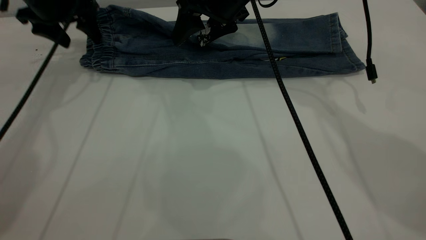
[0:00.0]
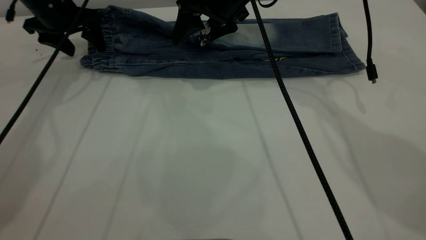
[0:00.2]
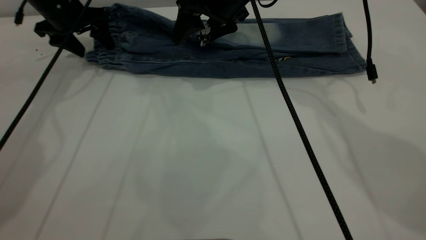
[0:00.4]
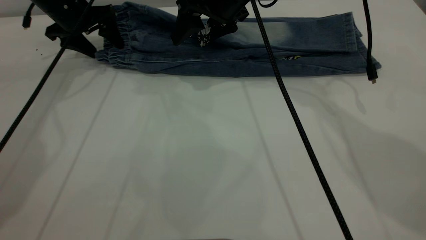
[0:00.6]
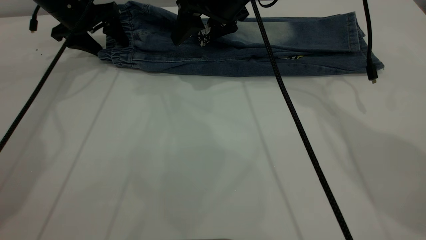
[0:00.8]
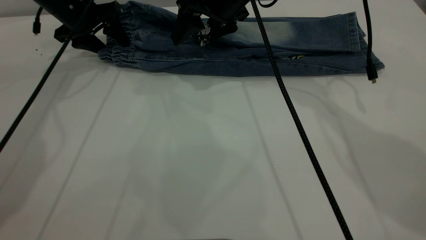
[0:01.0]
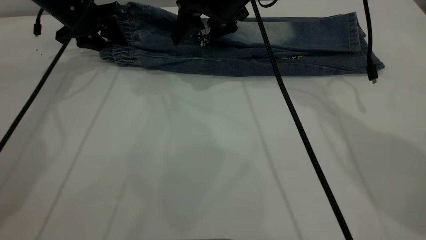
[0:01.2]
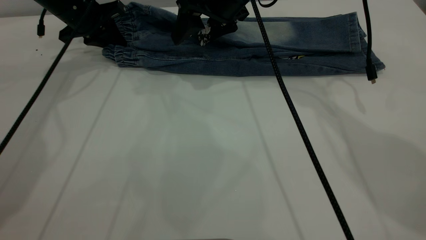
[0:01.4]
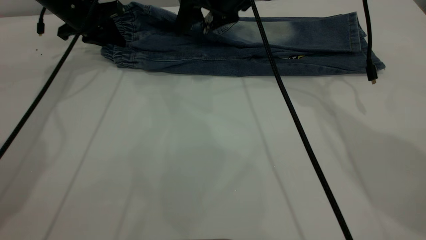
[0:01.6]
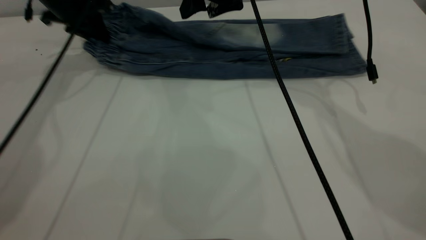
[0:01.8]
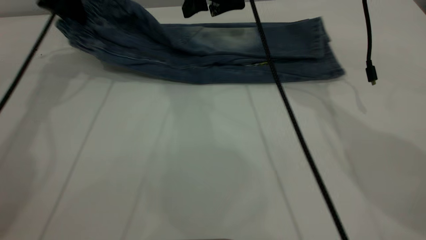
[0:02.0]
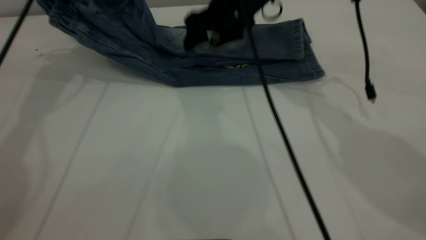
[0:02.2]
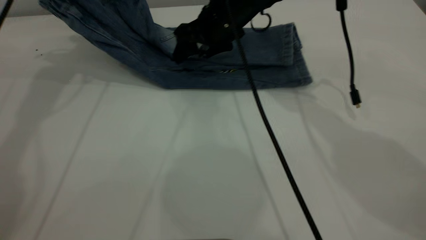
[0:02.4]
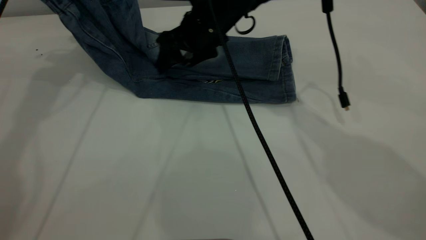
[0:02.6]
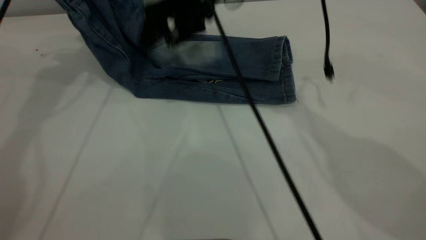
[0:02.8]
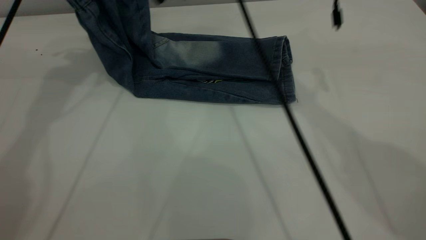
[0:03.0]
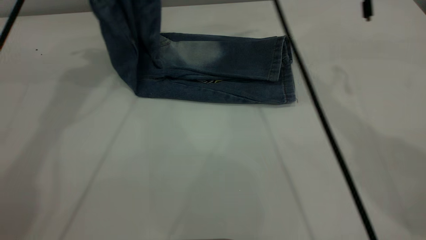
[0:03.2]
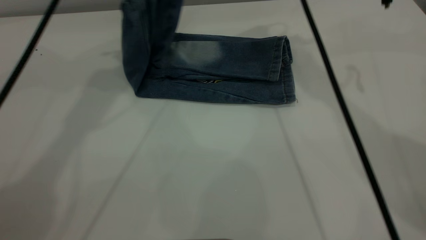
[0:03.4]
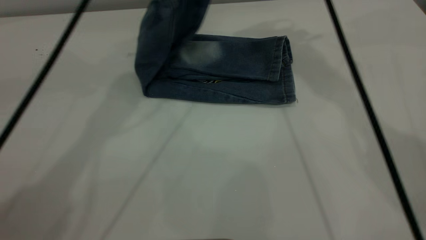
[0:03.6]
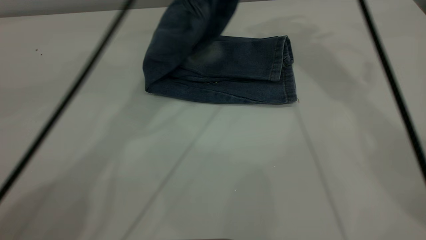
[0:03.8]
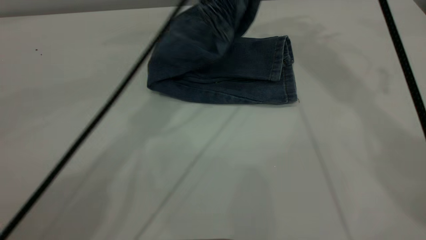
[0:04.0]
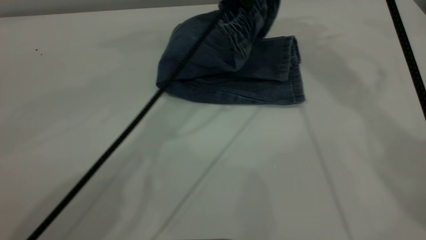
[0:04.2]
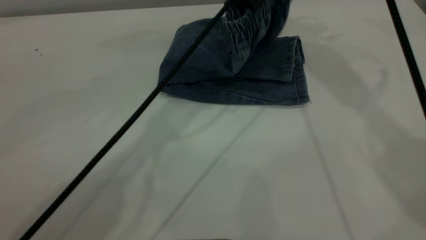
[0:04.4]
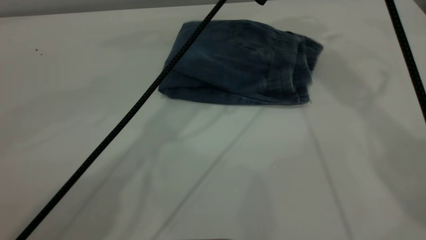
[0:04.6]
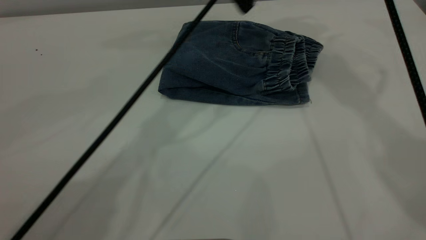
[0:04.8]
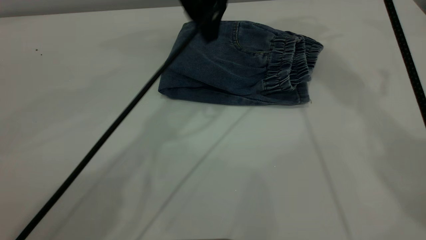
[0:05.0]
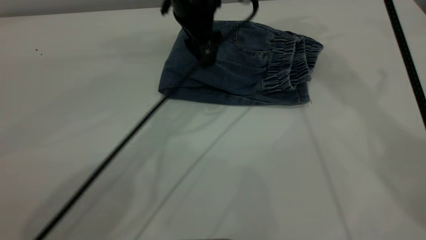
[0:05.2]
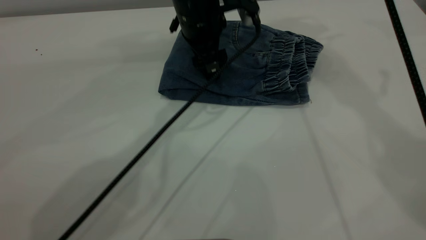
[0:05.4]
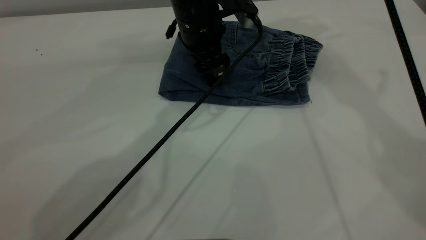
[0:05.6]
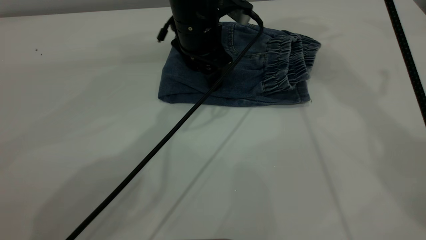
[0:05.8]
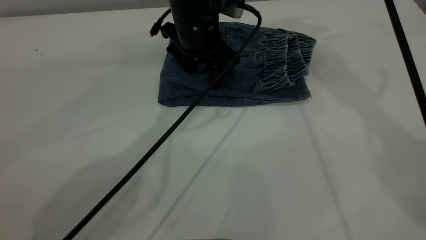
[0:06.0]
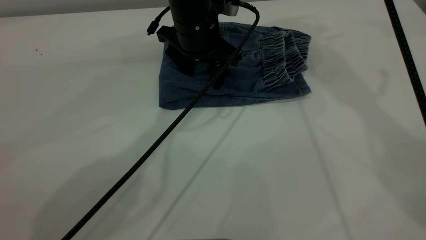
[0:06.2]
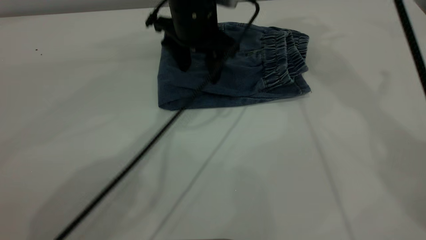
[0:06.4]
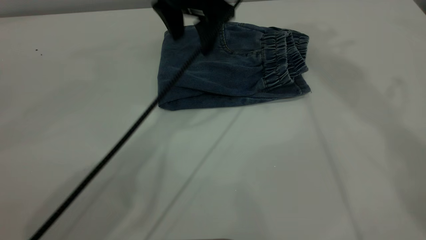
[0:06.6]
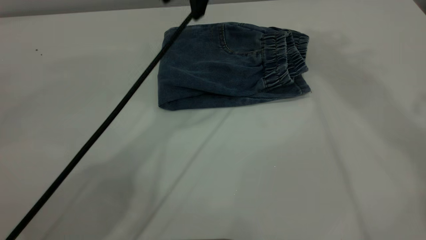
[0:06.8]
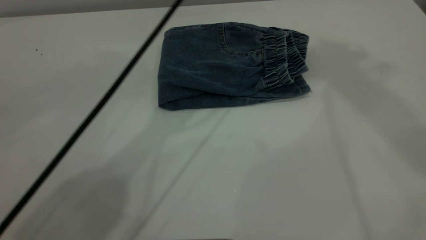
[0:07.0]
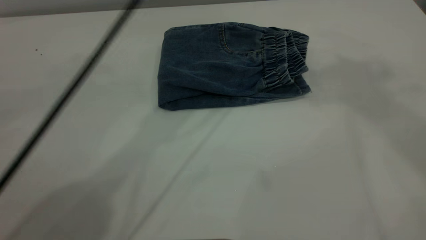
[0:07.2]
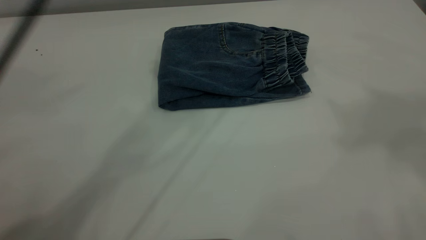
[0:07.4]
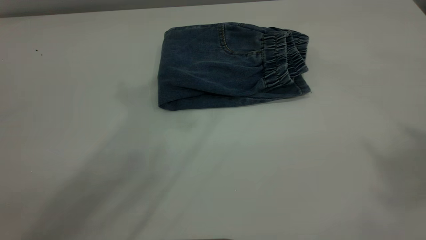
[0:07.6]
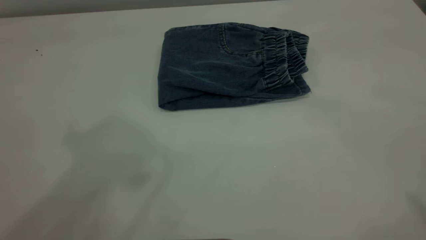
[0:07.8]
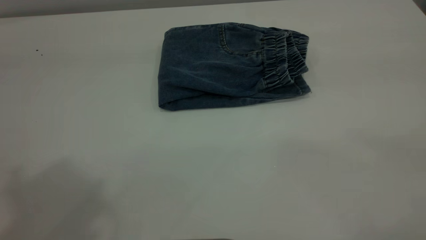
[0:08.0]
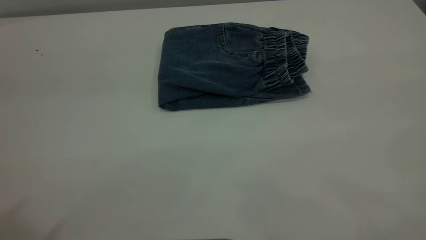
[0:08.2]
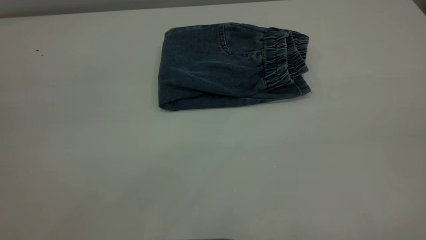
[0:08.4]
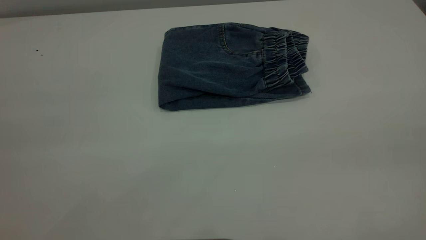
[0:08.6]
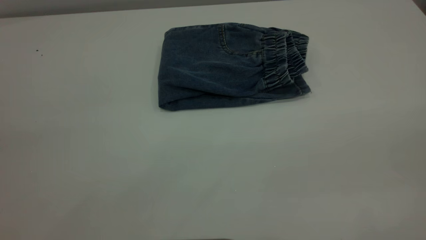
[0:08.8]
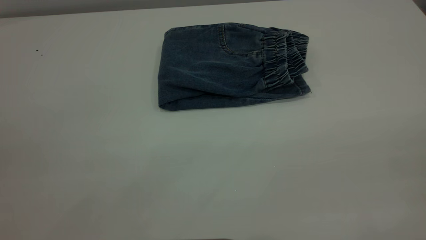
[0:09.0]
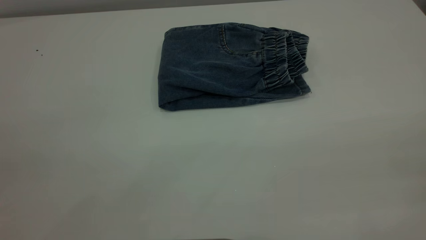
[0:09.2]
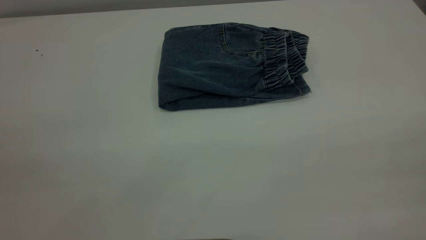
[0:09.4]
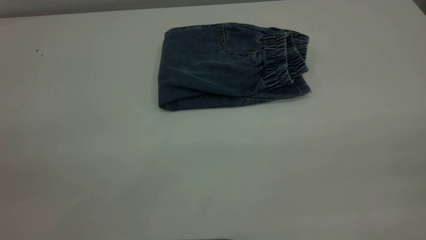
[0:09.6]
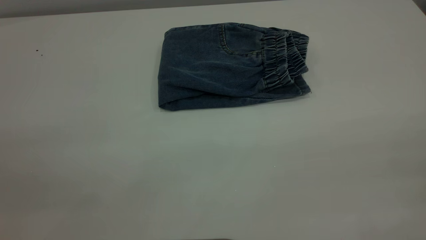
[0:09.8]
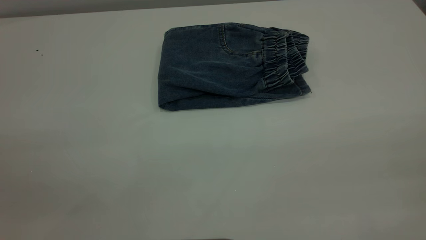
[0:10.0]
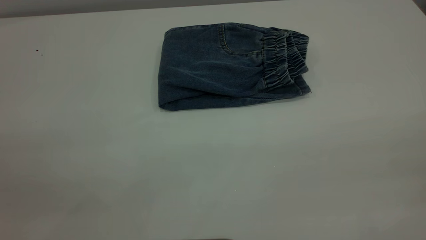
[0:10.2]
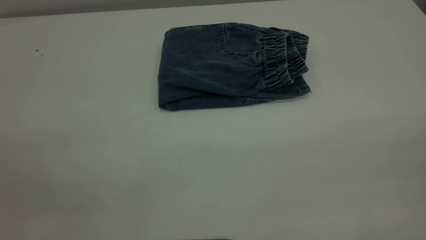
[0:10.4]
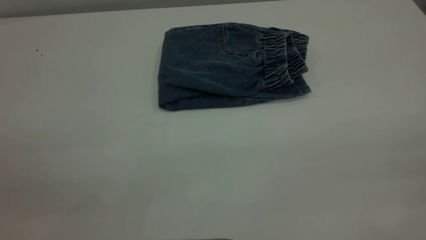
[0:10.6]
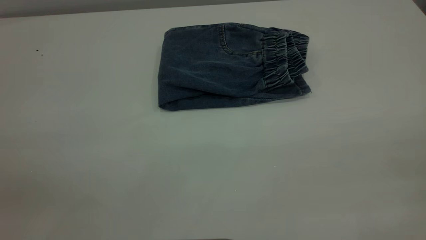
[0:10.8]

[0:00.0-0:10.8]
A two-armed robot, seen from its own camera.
Step, 0:00.0 to 0:04.6: Fold the pants from left to right.
0:00.0 to 0:01.6: The left gripper closes its fingers.
0:01.6 to 0:03.0: The right gripper moves upward, some 10 cm, while the left gripper moves upward, some 15 cm.
0:03.0 to 0:04.6: The right gripper goes about 20 cm upward and to the right; the left gripper goes some 25 cm to the right, and opens.
0:04.6 to 0:06.2: The left gripper travels downward by about 10 cm.
0:06.2 to 0:07.8: The right gripper moves backward, some 40 cm, while the left gripper heads upward and backward, covering roughly 40 cm.

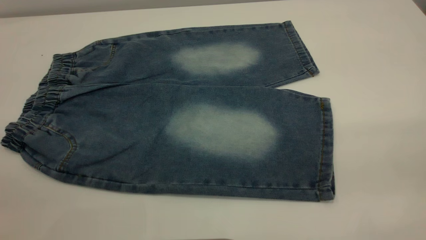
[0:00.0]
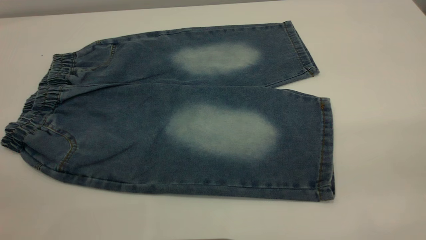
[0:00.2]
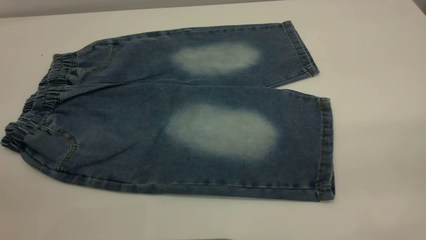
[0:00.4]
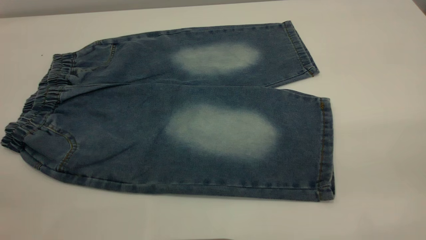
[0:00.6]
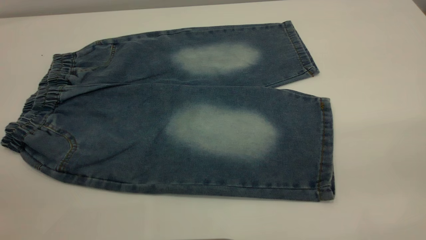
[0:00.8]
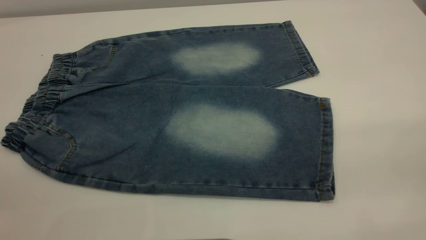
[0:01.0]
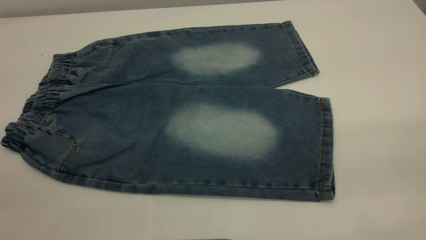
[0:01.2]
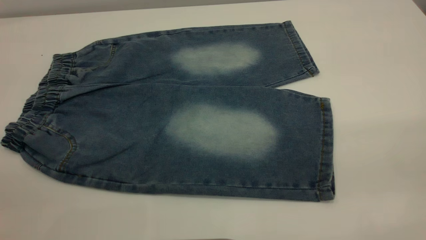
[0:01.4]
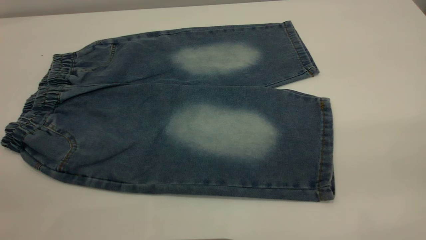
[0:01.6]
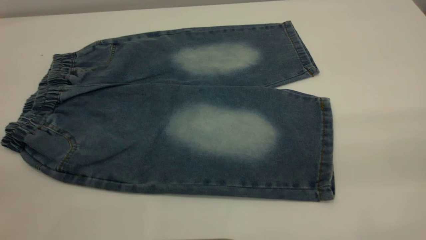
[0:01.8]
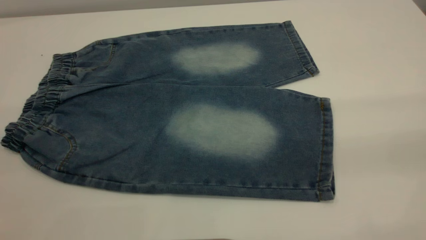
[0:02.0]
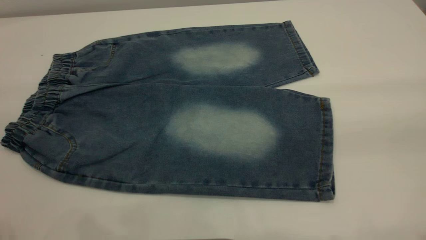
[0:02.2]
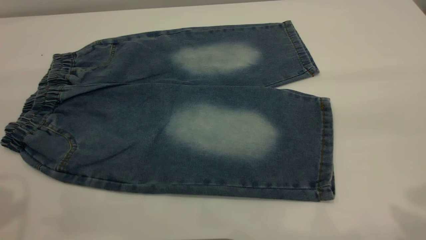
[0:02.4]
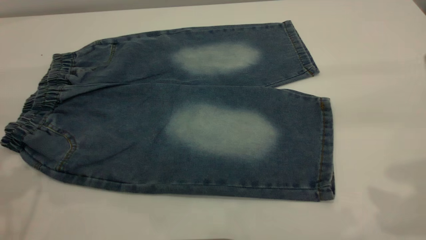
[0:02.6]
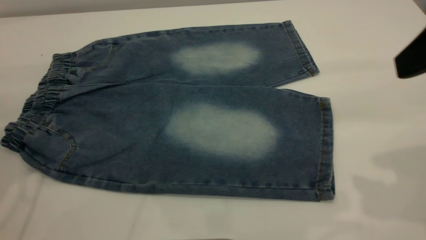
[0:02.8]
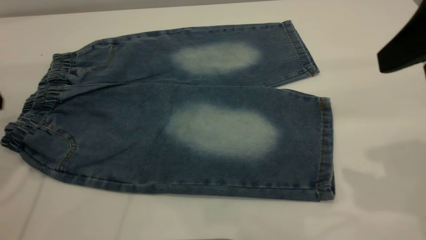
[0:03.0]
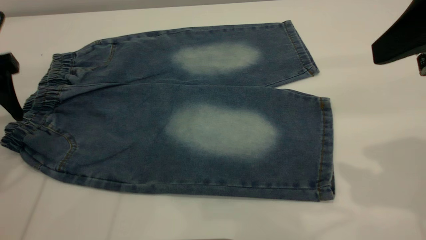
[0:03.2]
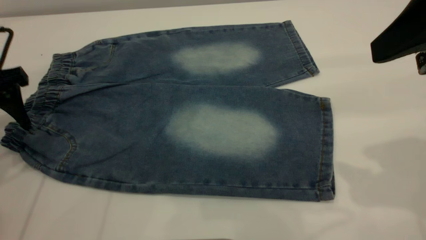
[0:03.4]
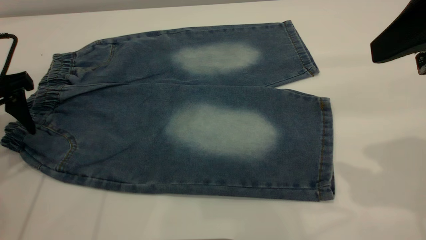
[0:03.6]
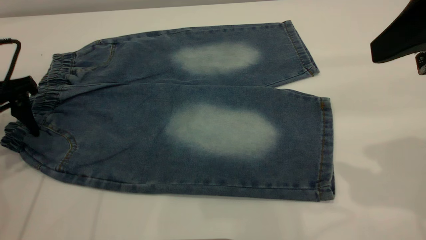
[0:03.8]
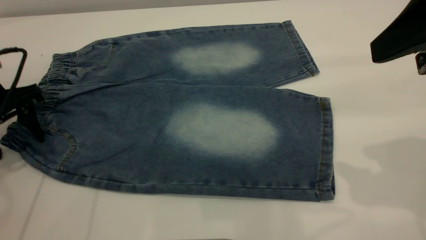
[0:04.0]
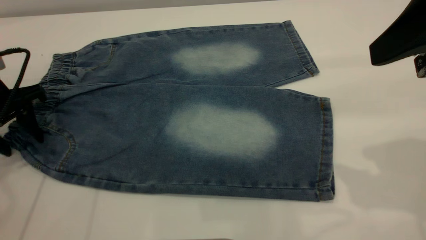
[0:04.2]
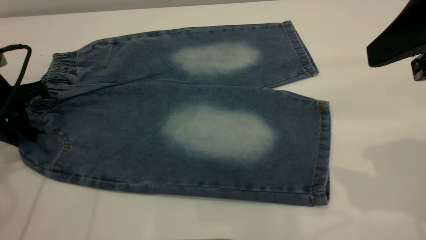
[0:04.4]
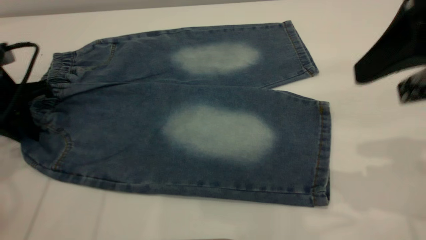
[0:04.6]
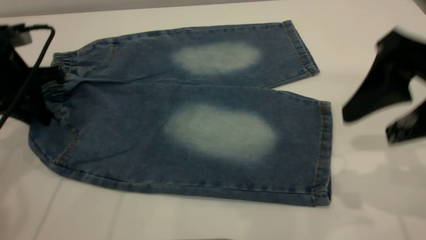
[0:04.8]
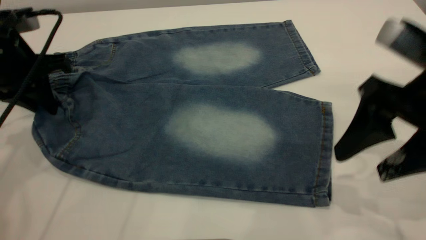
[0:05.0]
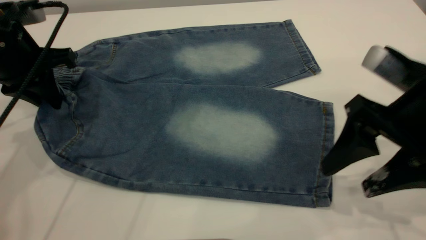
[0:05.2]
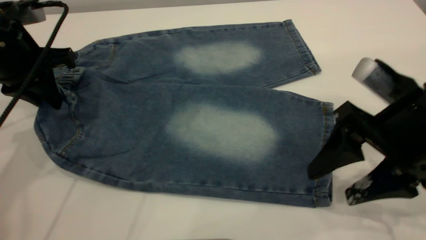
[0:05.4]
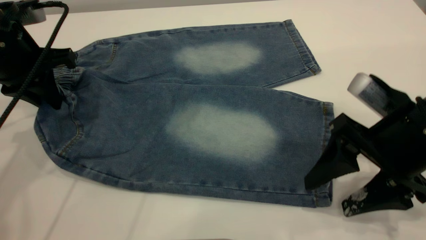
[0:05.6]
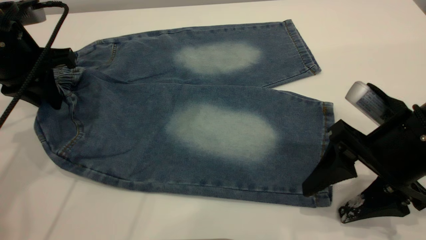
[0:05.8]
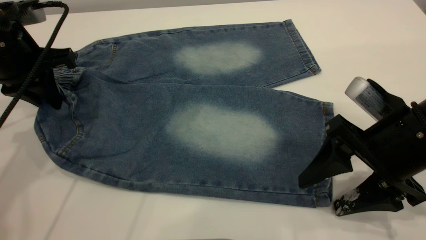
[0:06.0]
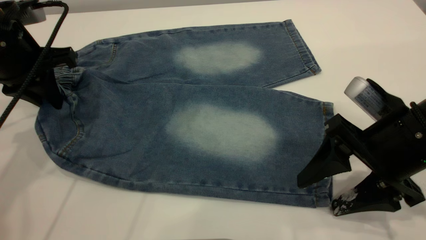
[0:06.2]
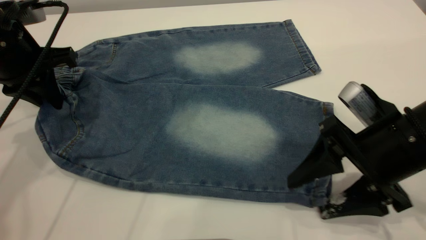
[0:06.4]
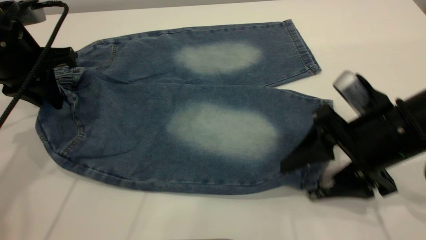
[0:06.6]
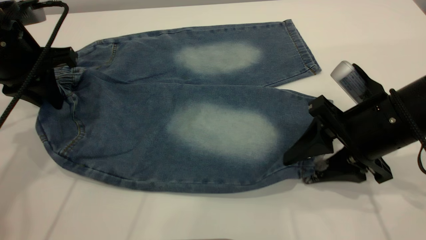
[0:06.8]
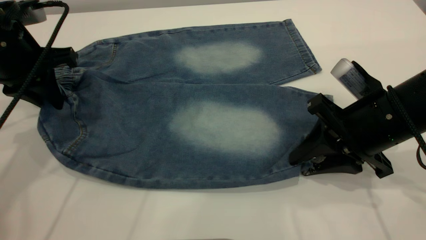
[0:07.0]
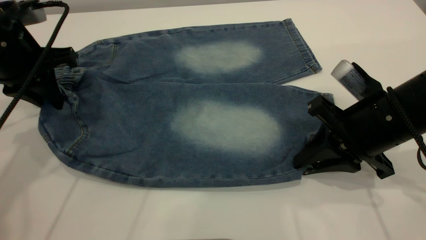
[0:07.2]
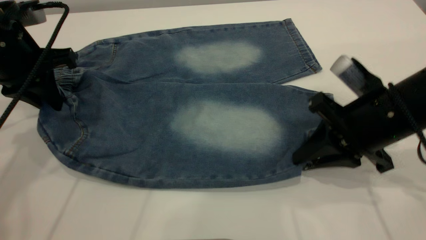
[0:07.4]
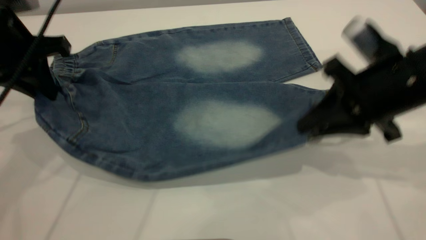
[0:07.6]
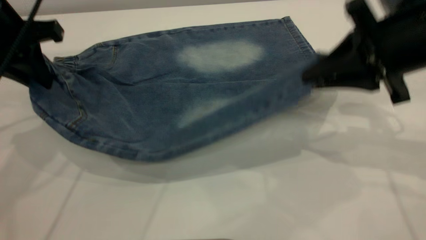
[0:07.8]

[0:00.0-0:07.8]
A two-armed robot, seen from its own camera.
0:00.0 to 0:01.6: The two grippers keep their place.
0:01.6 to 0:03.2: The left gripper travels forward and downward by some 35 cm; the right gripper goes some 20 cm forward.
0:03.2 to 0:04.6: The left gripper shifts roughly 5 cm downward, and closes.
0:04.6 to 0:06.2: The right gripper goes approximately 15 cm downward. The left gripper shifts by about 5 cm.
0:06.2 to 0:07.8: The right gripper heads upward and forward, covering approximately 10 cm, and closes.
